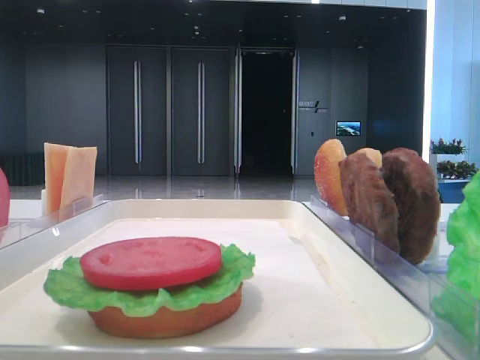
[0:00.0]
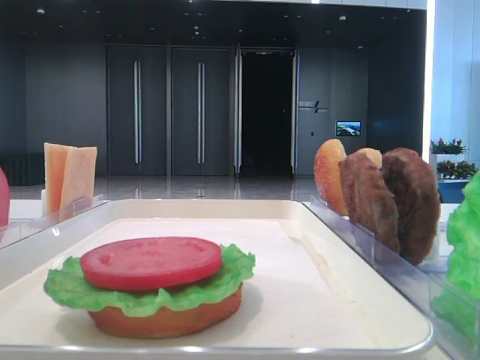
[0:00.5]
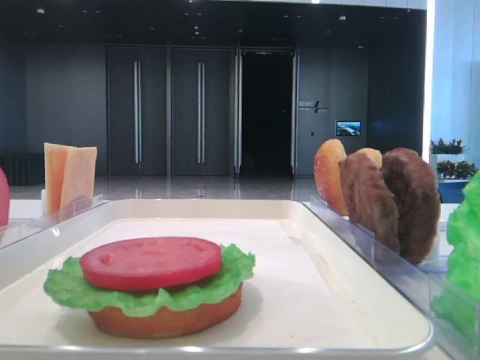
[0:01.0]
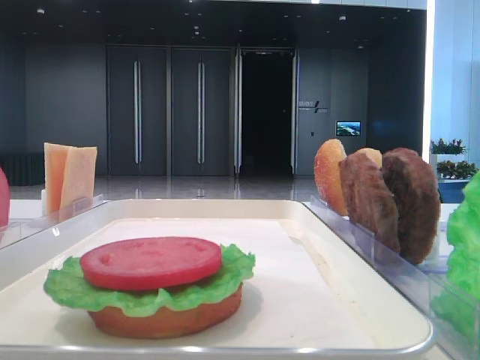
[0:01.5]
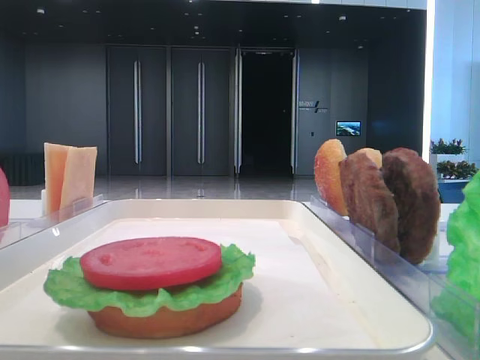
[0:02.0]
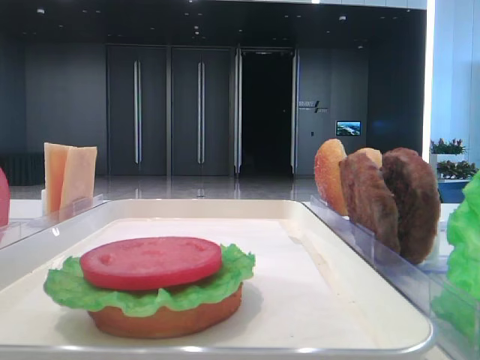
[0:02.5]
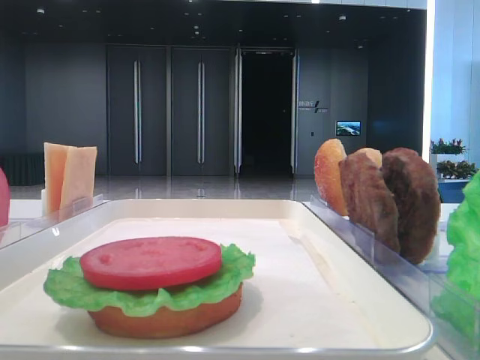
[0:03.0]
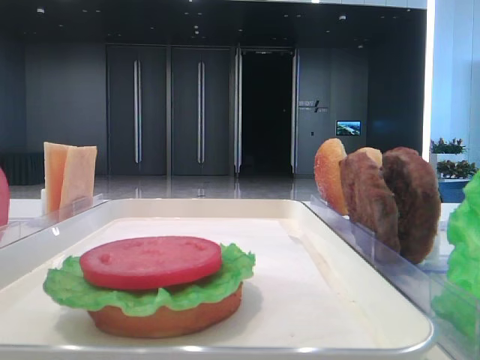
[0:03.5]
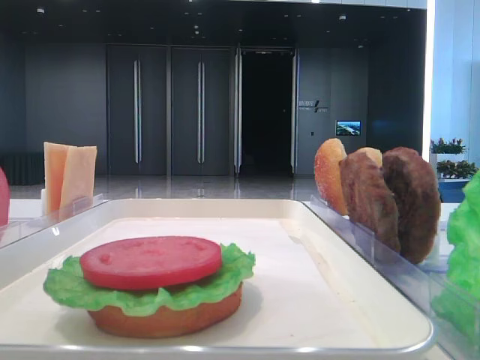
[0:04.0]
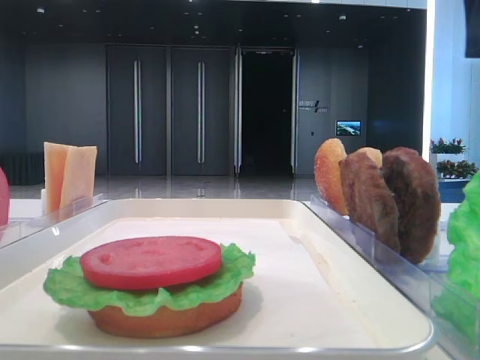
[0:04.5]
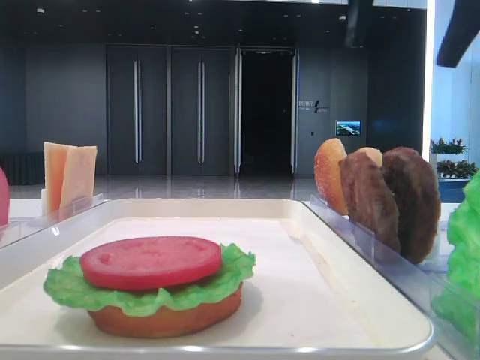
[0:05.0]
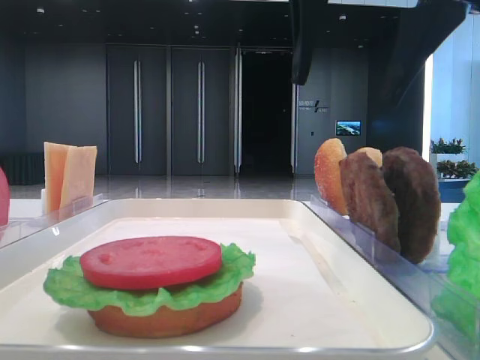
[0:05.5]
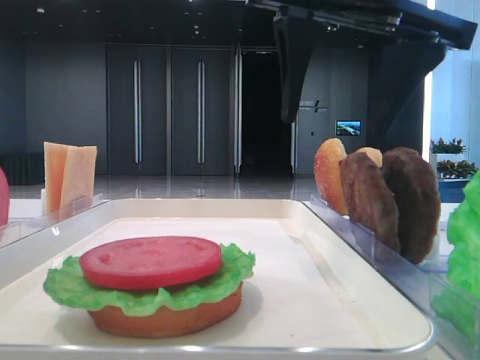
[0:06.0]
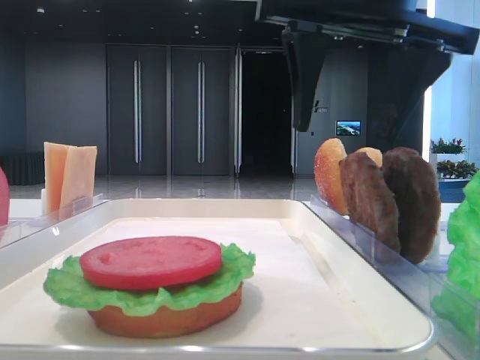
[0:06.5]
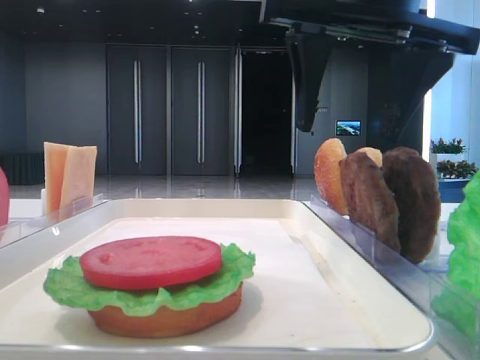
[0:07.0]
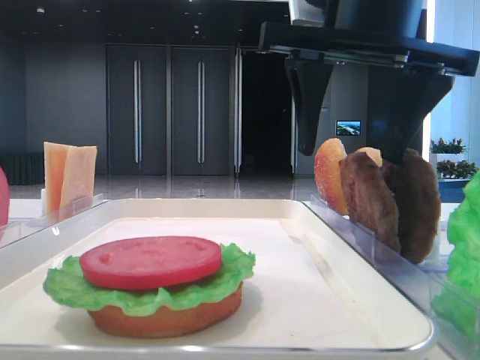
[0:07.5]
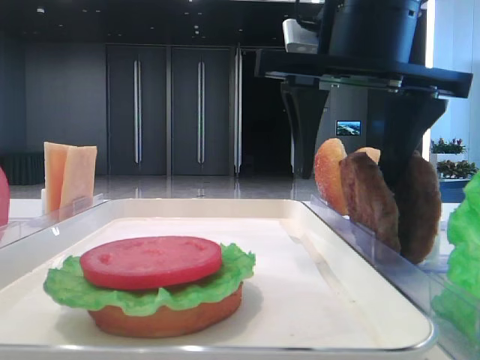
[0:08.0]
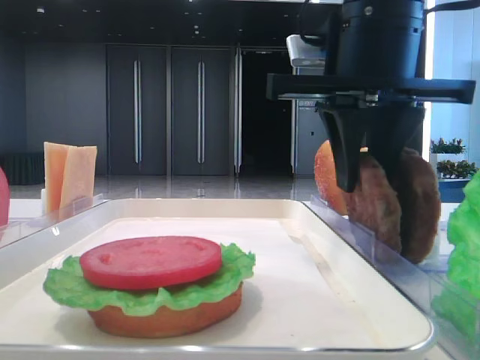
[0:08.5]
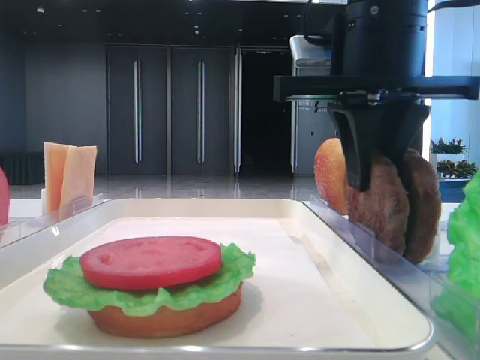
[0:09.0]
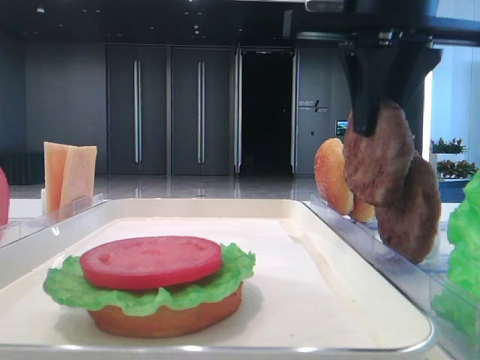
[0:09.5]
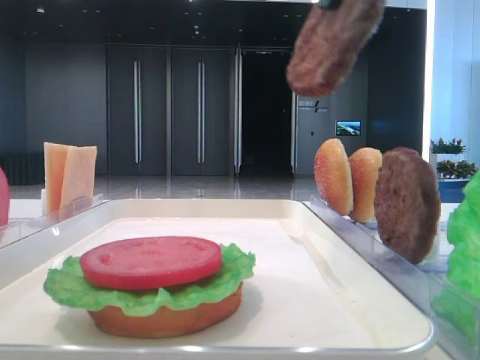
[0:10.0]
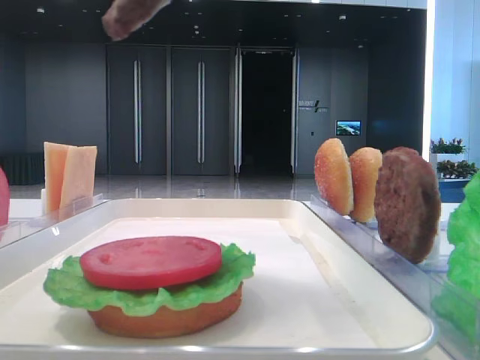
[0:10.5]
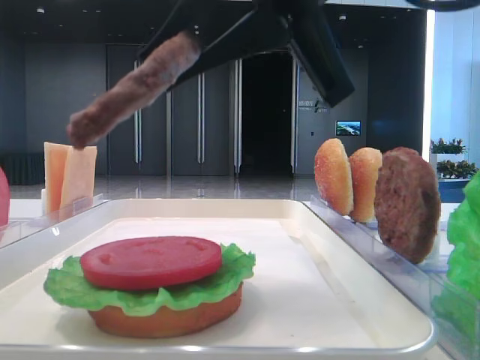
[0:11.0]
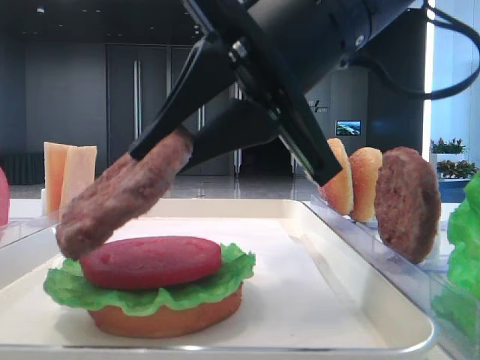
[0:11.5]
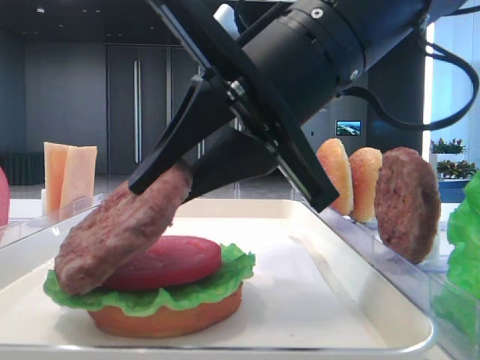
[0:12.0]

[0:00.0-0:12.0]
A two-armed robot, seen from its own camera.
Step, 0:00.0 to 0:08.5: Grab the patty with the right hand.
0:04.0 to 0:06.0: The right gripper goes approximately 20 cm to the left.
0:06.0 to 0:08.0: The left gripper closes up.
0:08.0 to 0:10.0: The right gripper is displaced upward and backward by approximately 10 cm, and closes up.
0:10.0 to 0:12.0: The right gripper travels downward and to the left by roughly 15 cm.

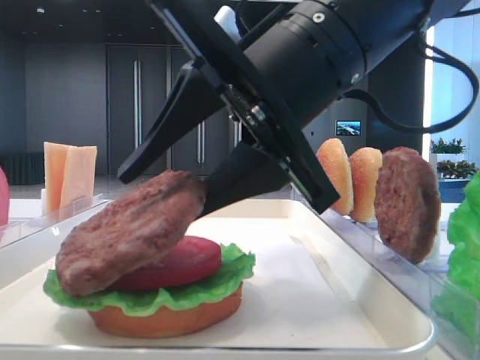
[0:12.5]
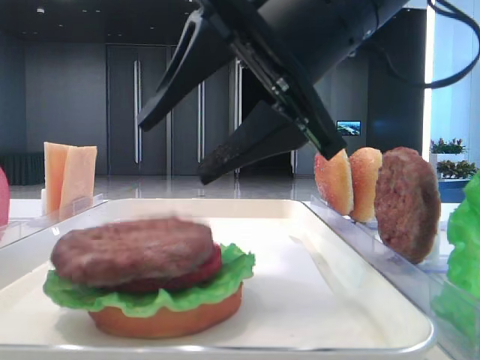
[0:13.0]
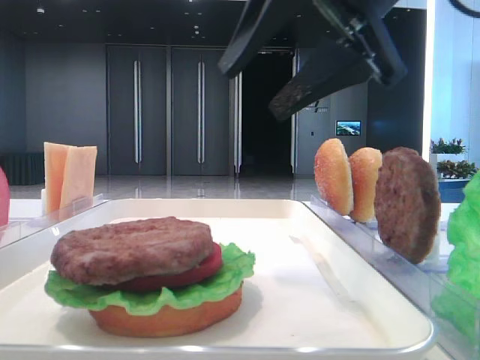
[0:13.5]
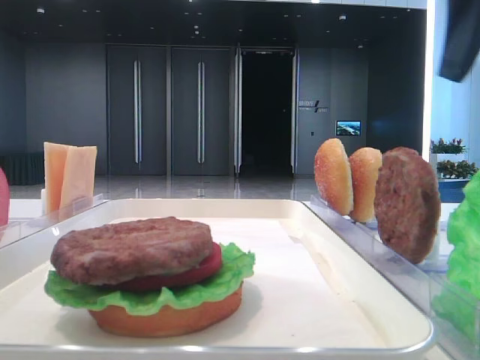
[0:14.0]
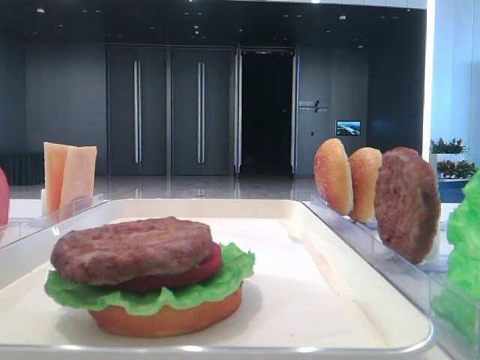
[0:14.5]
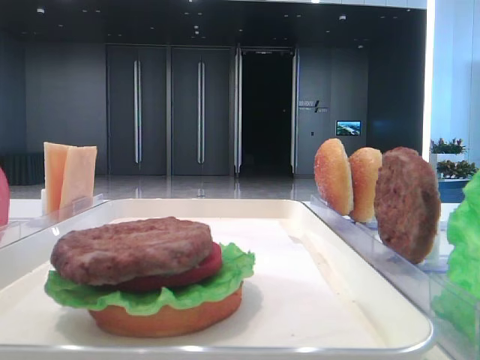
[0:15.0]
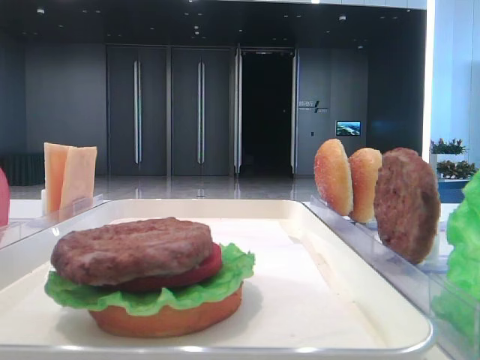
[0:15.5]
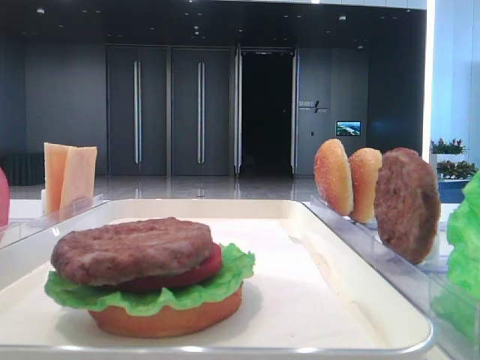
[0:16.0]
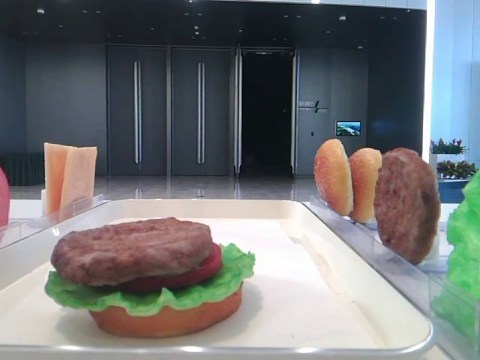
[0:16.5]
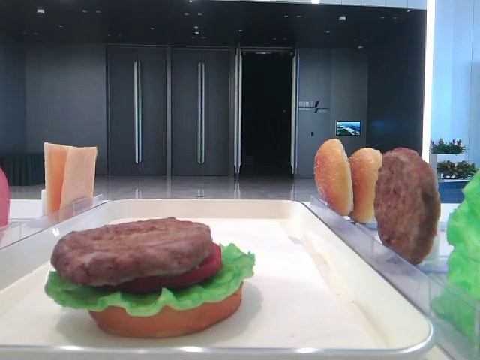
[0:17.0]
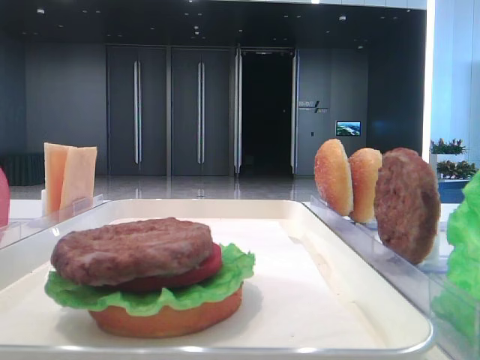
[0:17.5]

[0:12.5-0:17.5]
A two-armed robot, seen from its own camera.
0:12.5 to 0:15.0: The right gripper goes about 30 cm to the right and upward.
